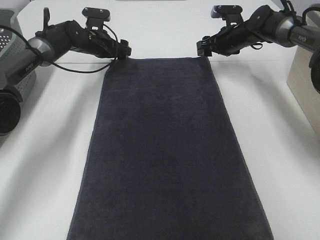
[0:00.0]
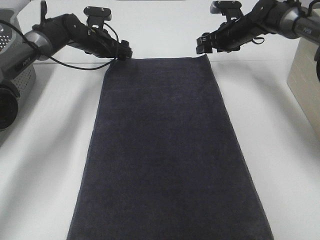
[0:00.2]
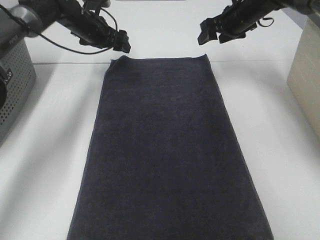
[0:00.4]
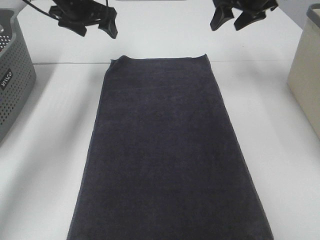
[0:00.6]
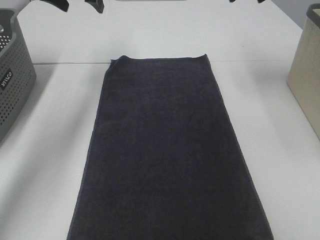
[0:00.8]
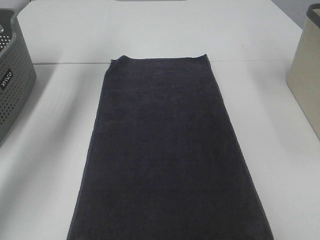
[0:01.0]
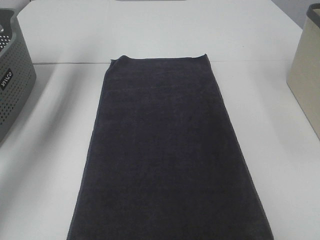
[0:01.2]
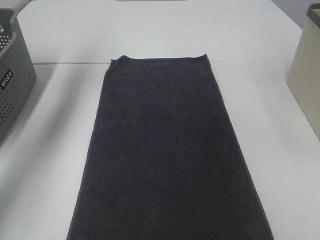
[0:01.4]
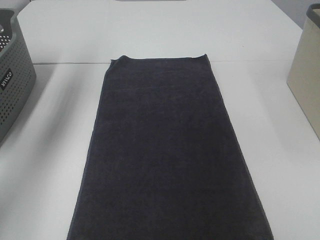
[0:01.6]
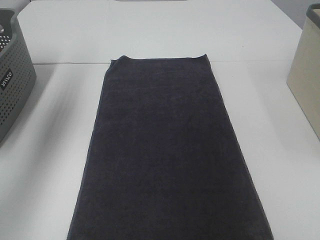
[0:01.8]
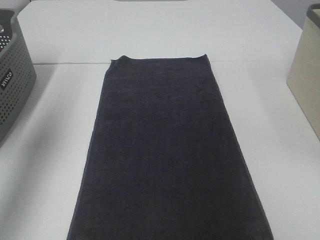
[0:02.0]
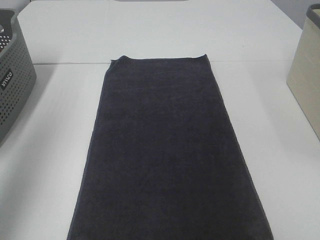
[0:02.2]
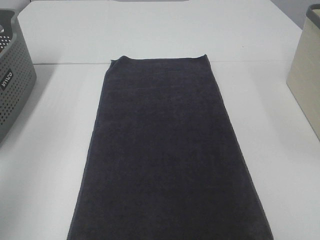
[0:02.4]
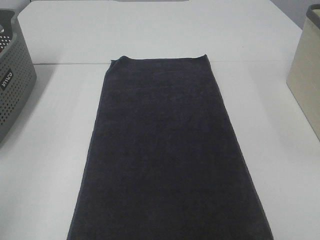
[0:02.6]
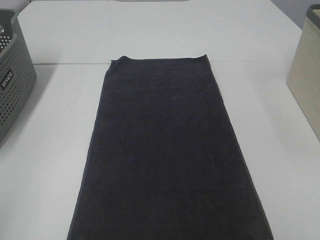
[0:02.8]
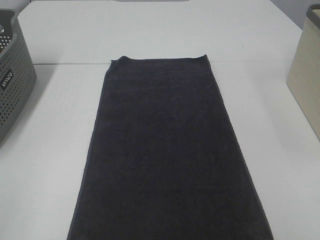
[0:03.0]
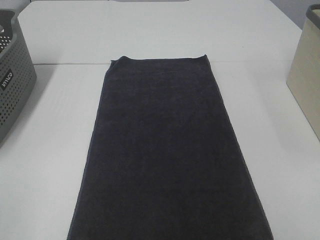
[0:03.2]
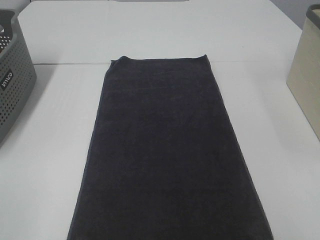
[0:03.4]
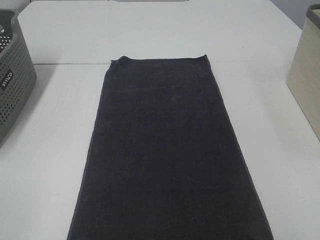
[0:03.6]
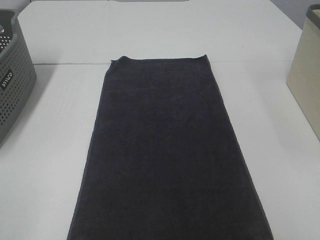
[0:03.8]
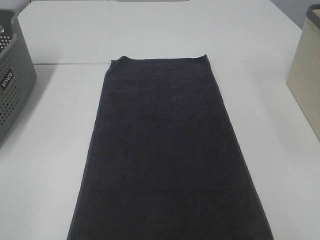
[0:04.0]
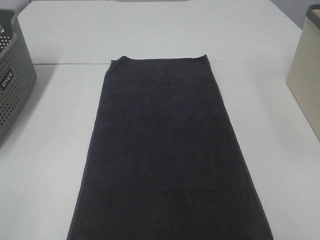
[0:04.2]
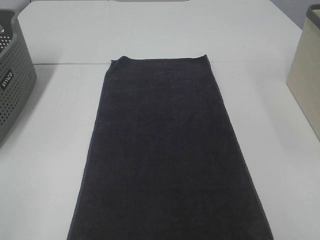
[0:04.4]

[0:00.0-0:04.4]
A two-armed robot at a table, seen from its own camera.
Task of the whole recording: Remove the towel and place it.
0:00.0 to 0:01.4: The left gripper moves upward, roughly 30 cm; the right gripper moves upward and backward, about 35 cm.
0:01.4 to 0:03.0: The left gripper travels backward by about 50 cm.
